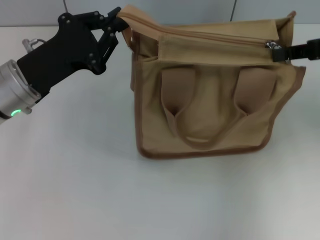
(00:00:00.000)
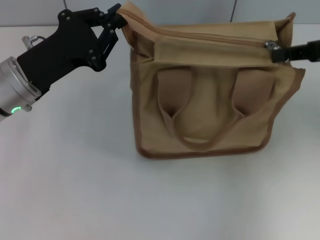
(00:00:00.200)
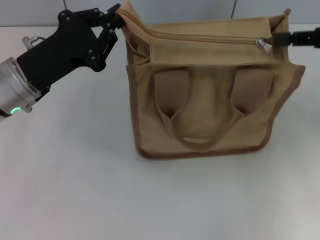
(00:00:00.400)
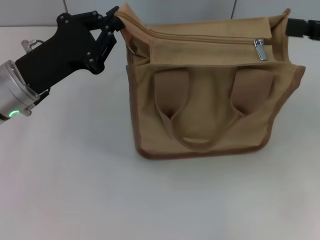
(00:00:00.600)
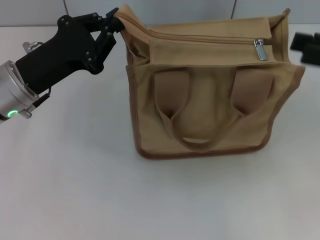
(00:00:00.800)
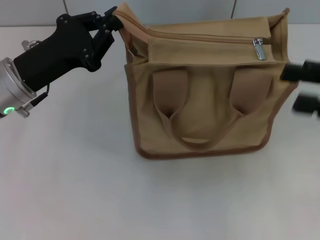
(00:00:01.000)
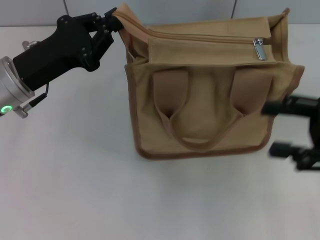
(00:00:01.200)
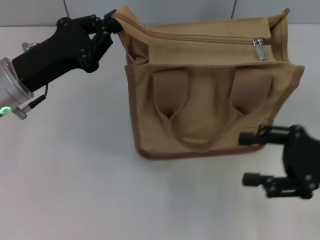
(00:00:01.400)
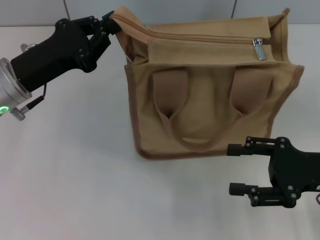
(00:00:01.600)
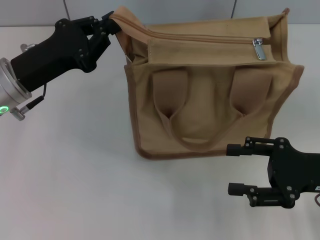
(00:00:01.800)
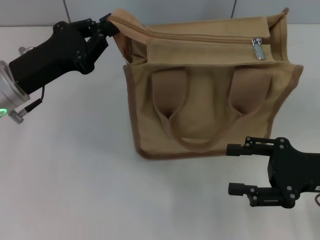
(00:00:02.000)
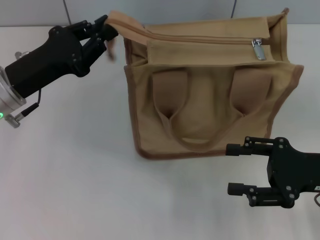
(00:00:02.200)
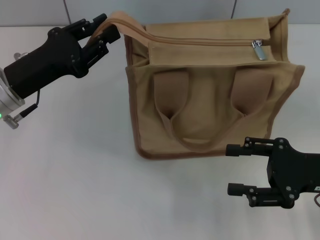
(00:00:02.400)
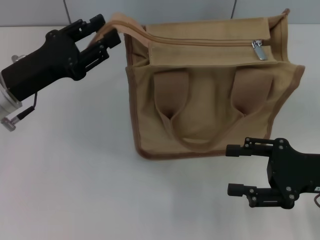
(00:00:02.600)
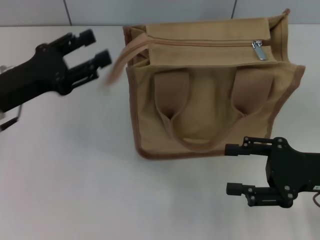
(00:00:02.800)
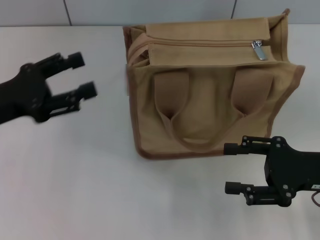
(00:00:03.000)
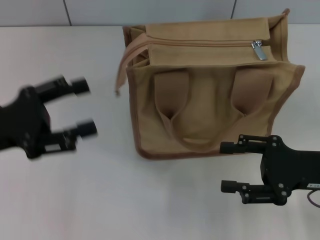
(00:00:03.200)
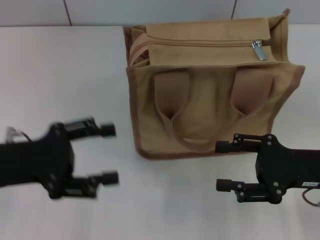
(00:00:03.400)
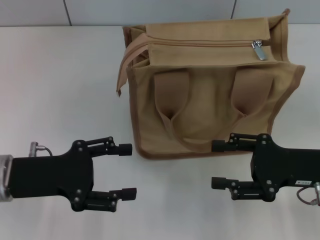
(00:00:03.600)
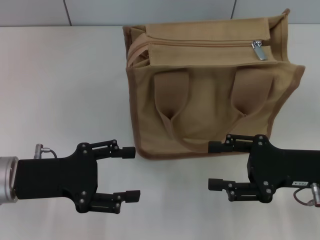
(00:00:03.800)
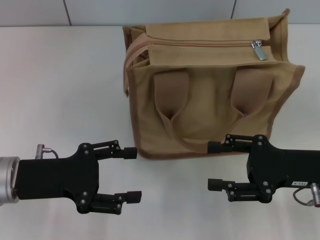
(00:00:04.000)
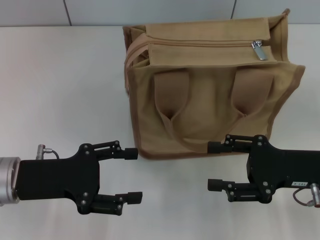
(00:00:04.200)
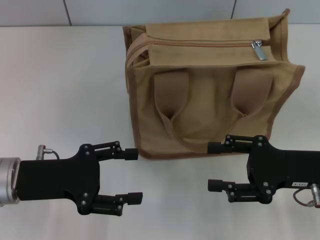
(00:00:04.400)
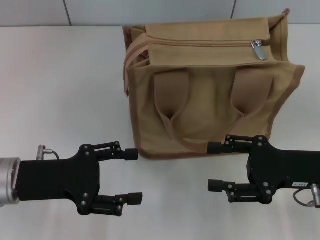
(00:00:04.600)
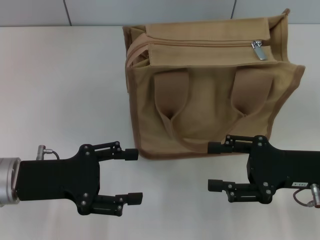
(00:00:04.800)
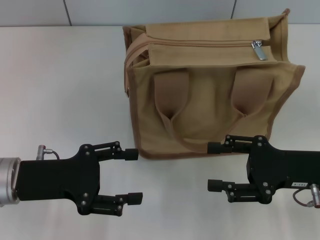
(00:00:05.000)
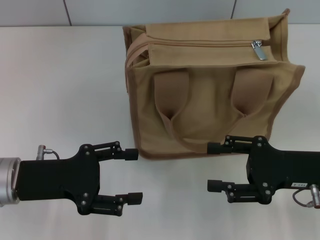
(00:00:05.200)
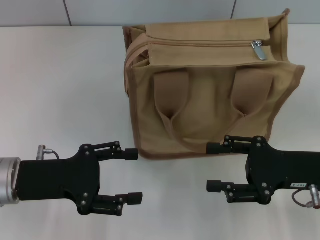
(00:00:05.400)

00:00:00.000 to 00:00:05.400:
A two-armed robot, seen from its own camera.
Step, 00:00:00.600 to 00:00:02.600: Grab the zipper with your left hand.
00:00:00.000 to 00:00:01.400: The right gripper travels downward and backward by roughly 15 cm, and opens its fingers.
00:00:01.400 to 00:00:02.800: The left gripper opens its fingers.
00:00:02.800 to 00:00:04.000: The left gripper shifts about 5 cm backward.
00:00:04.000 to 00:00:05.400: Both grippers stay about where they are.

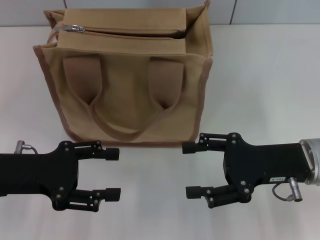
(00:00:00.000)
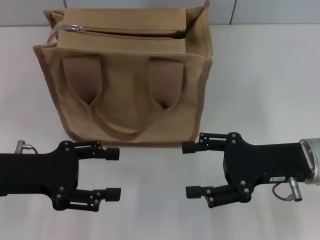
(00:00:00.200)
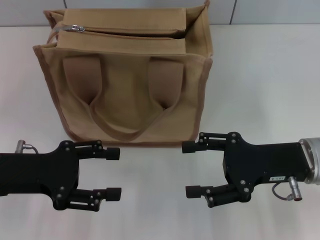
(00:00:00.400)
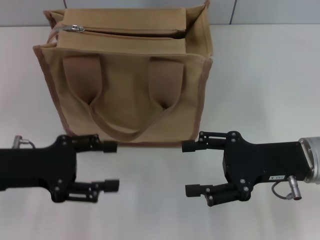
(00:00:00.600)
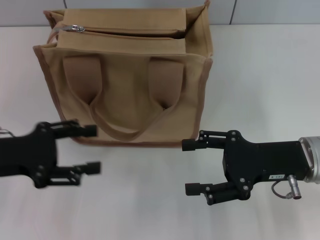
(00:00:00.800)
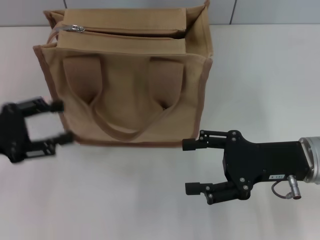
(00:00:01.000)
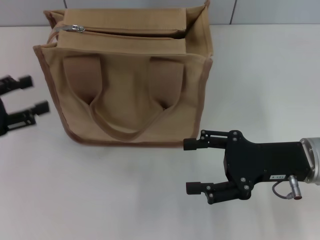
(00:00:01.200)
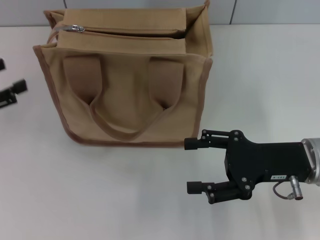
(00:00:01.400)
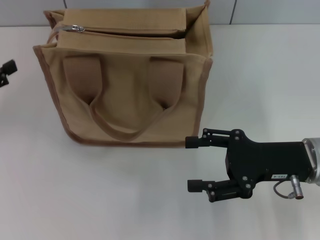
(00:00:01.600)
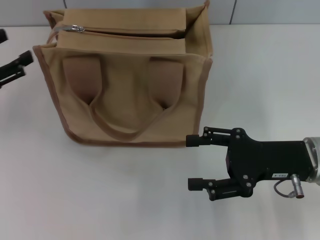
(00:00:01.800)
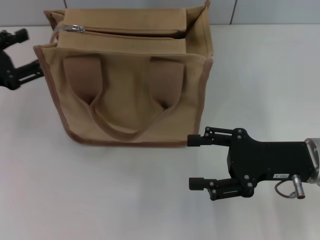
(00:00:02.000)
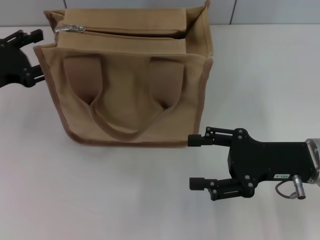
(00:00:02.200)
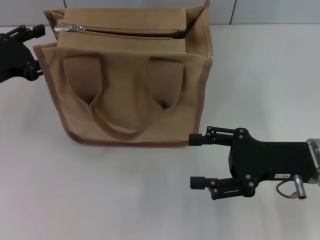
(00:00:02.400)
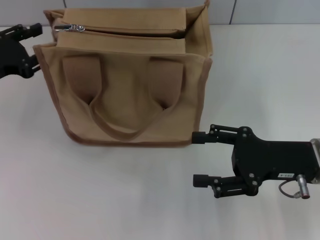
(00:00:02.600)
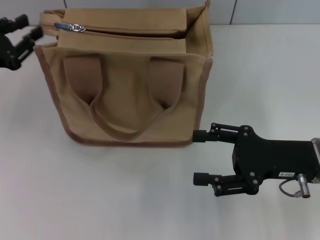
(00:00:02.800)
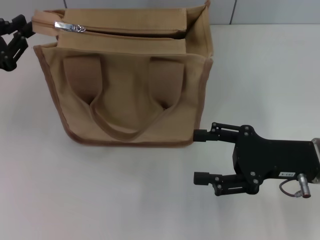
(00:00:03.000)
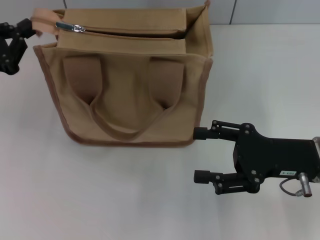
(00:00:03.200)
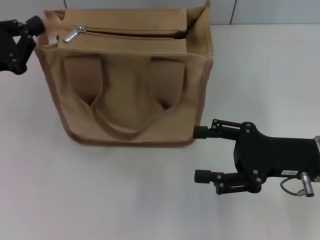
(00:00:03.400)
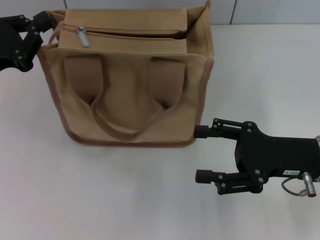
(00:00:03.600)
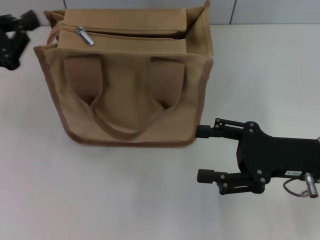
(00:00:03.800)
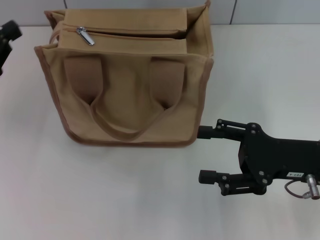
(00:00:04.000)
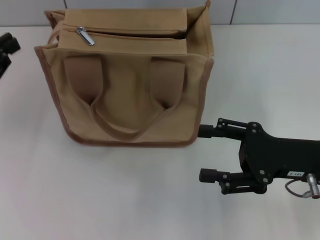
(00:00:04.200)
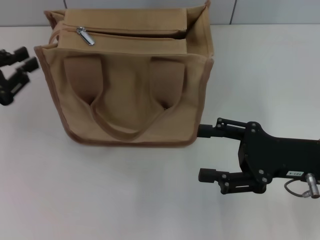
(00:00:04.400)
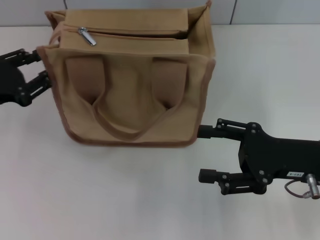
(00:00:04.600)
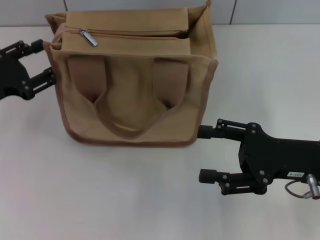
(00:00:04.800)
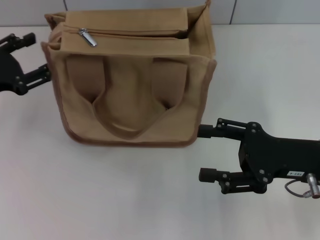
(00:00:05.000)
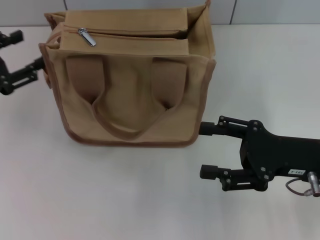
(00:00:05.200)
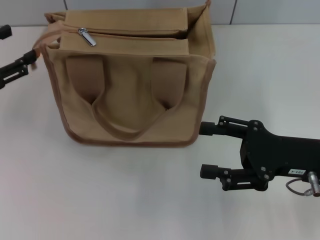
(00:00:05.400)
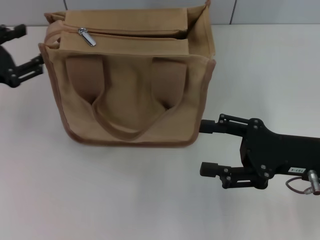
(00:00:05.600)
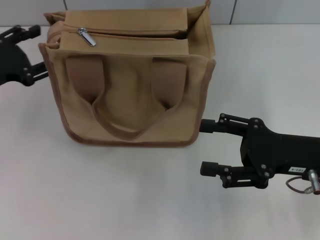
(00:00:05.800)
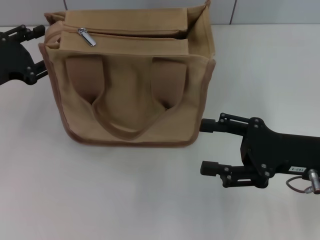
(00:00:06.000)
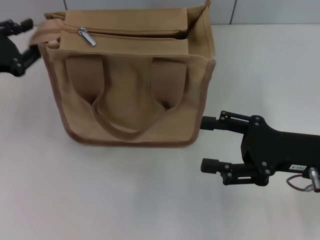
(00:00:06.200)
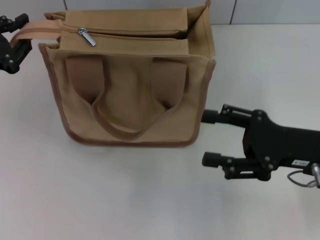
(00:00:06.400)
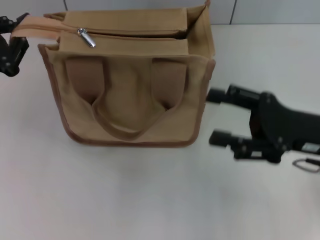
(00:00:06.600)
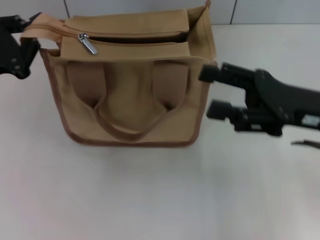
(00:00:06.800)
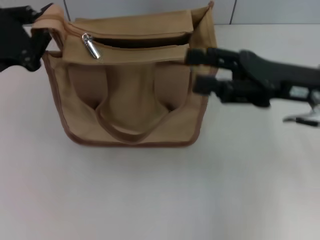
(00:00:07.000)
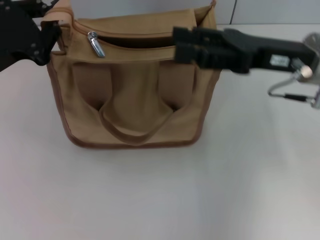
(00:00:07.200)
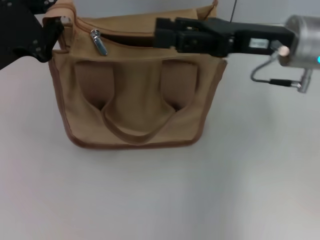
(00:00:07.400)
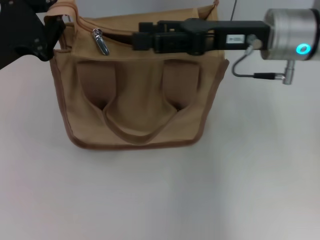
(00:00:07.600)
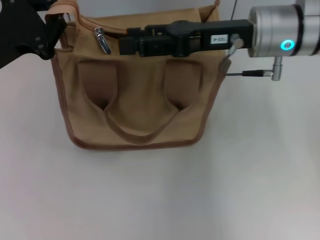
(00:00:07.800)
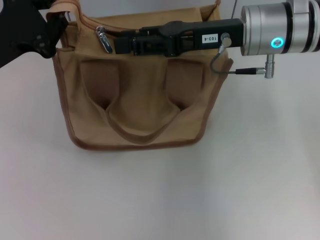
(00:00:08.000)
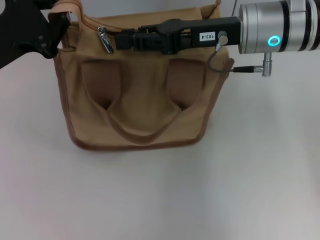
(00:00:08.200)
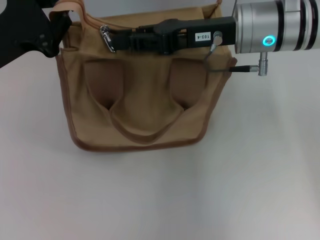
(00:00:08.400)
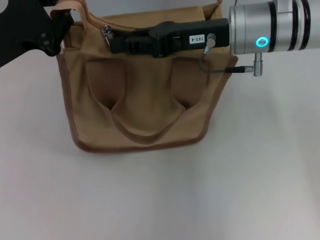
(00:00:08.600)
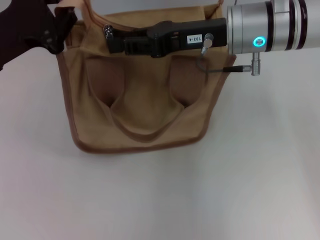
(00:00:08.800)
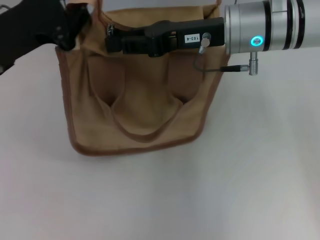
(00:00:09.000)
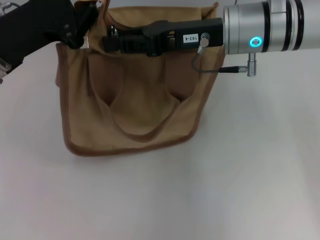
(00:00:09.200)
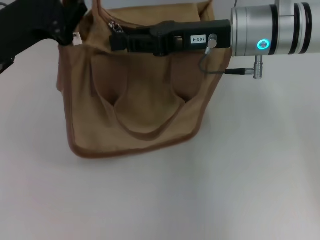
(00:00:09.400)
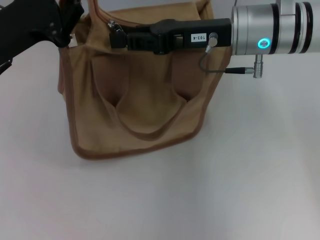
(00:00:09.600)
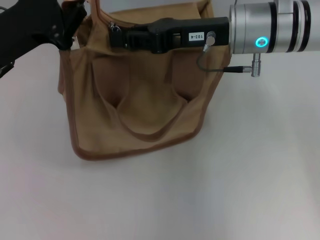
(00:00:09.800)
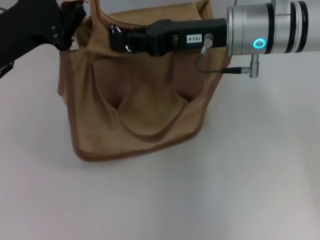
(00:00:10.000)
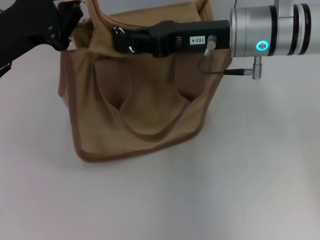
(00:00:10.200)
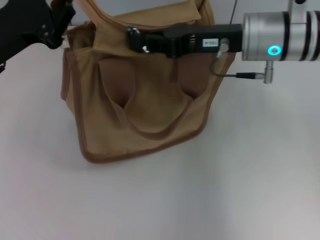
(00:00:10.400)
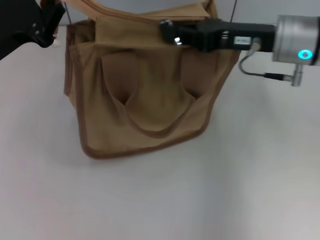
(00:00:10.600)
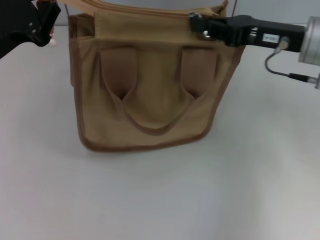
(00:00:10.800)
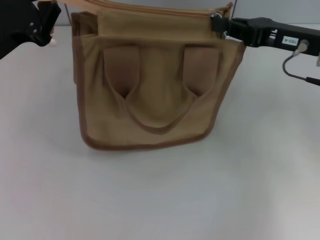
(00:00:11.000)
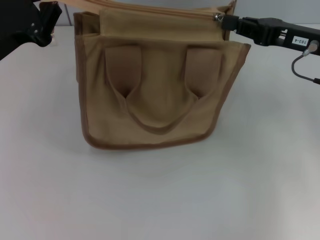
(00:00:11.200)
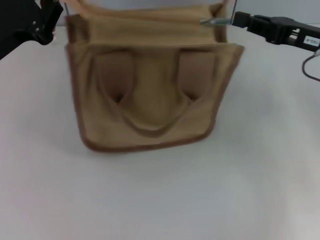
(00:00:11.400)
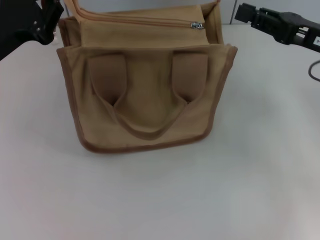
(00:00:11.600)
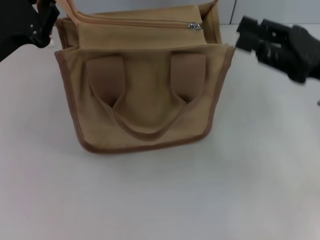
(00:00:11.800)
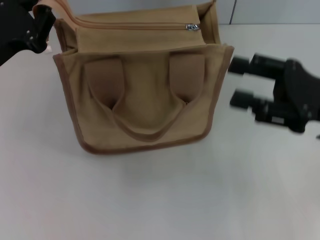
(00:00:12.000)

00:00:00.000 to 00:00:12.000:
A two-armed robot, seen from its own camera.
Step, 00:00:00.000 to 00:00:11.400: Pull up the zipper with your right hand.
00:00:00.000 to 00:00:01.600: The left gripper moves to the left, some 10 cm.
00:00:01.600 to 00:00:03.000: The left gripper moves some 5 cm, and closes its fingers.
00:00:03.000 to 00:00:04.400: The grippers make only small movements.
00:00:04.400 to 00:00:06.000: The left gripper ends up about 5 cm from where it was, and opens up.
00:00:06.000 to 00:00:07.600: The left gripper ends up approximately 5 cm from where it was, and closes up; the right gripper travels forward, upward and to the left by approximately 15 cm.
00:00:07.600 to 00:00:09.000: The right gripper closes up.
00:00:09.000 to 00:00:10.400: There are only small adjustments of the grippers.
00:00:10.400 to 00:00:12.000: The right gripper is displaced to the right and backward by roughly 15 cm, and opens its fingers.

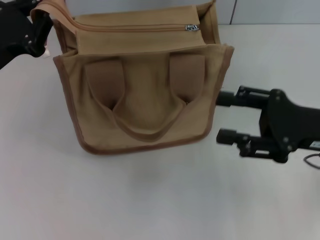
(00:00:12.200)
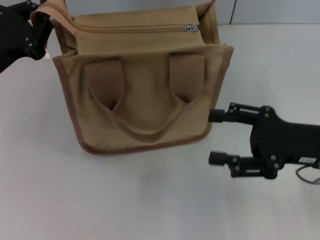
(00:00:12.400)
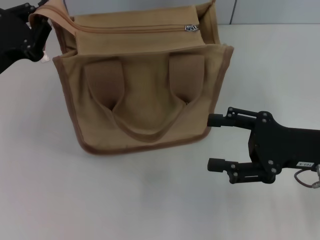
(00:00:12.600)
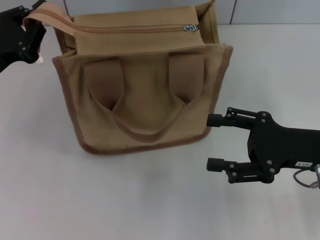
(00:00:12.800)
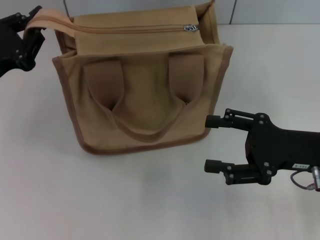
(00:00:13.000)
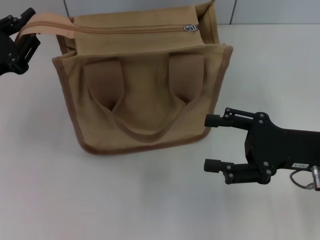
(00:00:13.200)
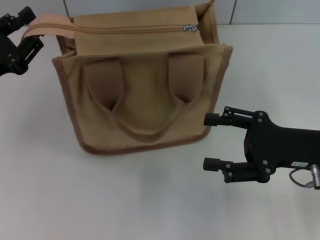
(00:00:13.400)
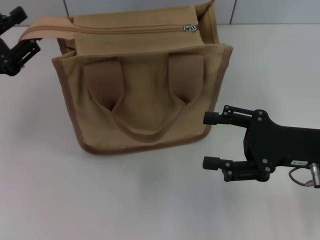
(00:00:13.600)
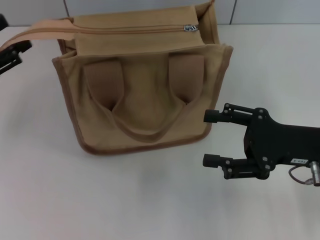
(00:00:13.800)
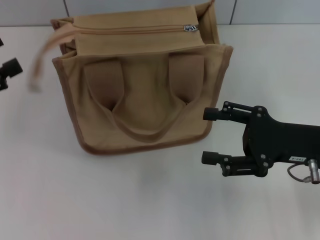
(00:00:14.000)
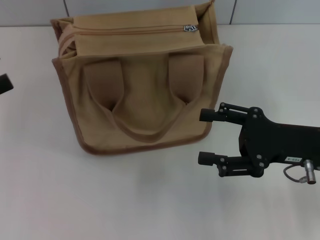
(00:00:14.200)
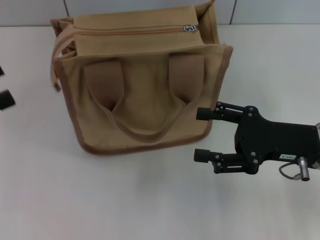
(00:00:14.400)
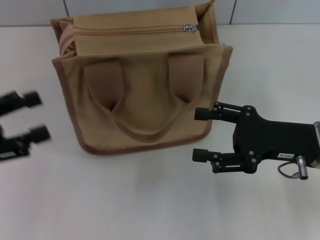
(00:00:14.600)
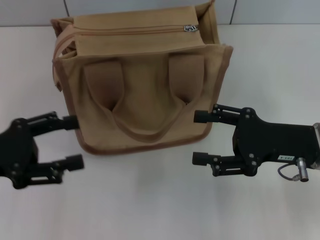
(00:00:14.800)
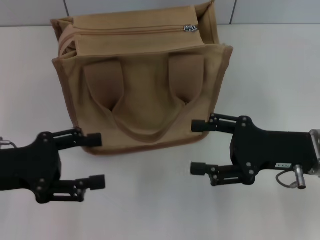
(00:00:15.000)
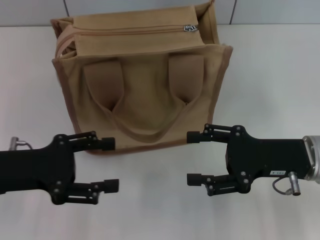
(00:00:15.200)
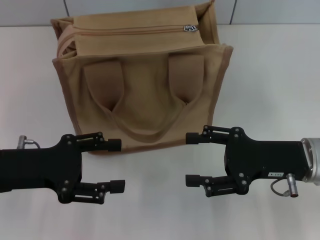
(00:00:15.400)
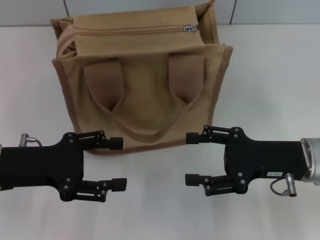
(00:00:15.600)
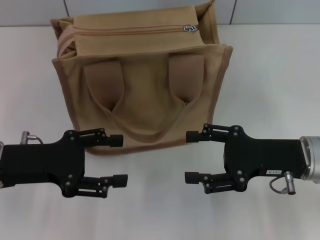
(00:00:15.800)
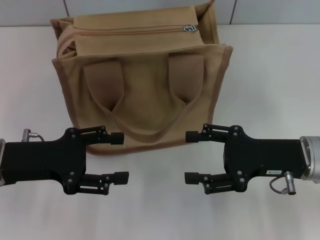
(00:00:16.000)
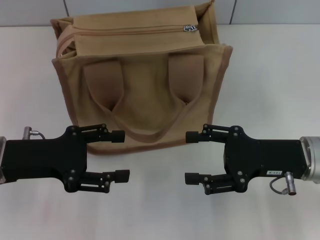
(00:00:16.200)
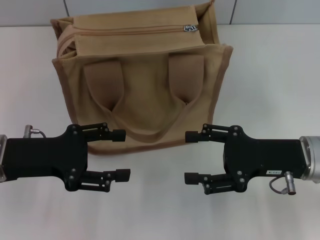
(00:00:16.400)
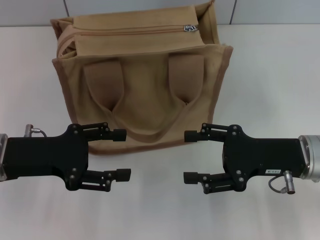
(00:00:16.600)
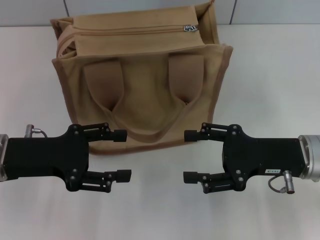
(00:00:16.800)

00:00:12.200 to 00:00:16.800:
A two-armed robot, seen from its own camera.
Step, 00:00:12.200 to 00:00:13.800: Grab the zipper with your left hand.
00:00:12.200 to 00:00:13.800: The right gripper opens; the left gripper goes roughly 5 cm to the left, and opens.
00:00:13.800 to 00:00:15.200: The left gripper goes roughly 10 cm to the right.
00:00:15.200 to 00:00:16.800: The grippers stay close to where they were, moving slightly.
